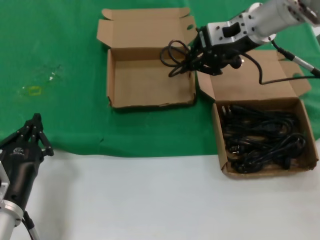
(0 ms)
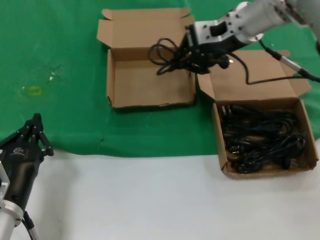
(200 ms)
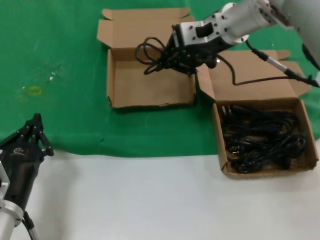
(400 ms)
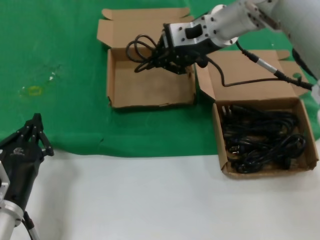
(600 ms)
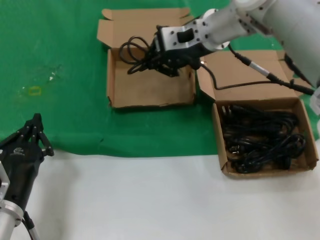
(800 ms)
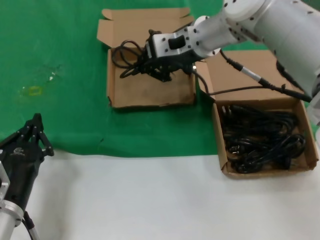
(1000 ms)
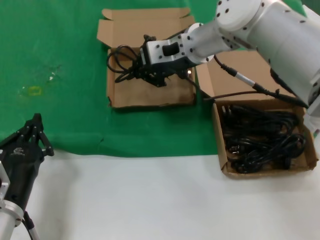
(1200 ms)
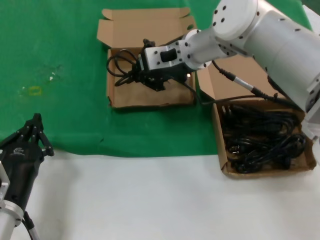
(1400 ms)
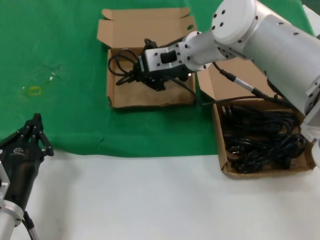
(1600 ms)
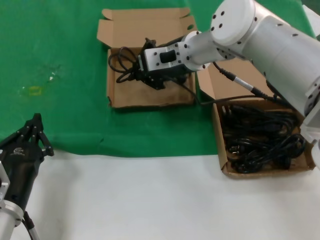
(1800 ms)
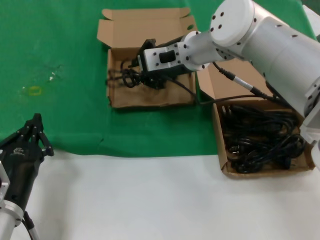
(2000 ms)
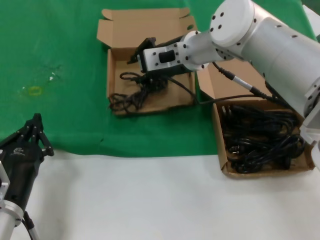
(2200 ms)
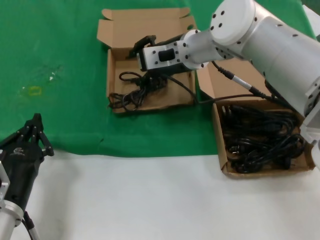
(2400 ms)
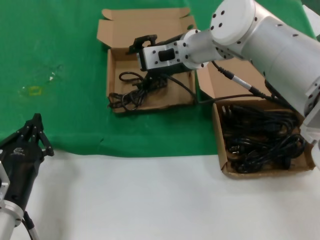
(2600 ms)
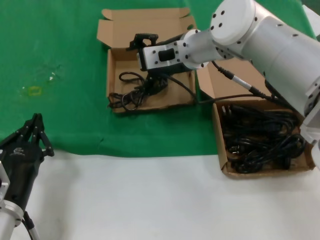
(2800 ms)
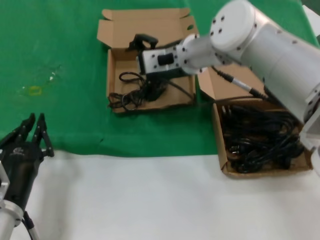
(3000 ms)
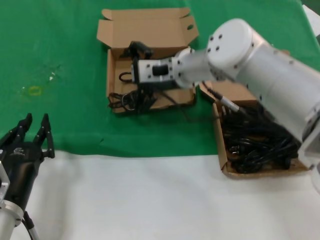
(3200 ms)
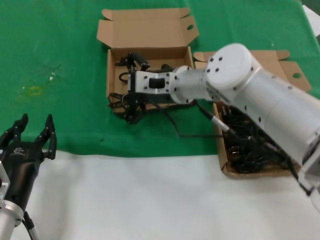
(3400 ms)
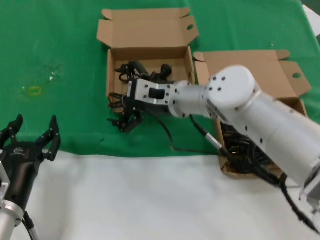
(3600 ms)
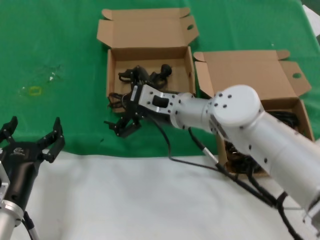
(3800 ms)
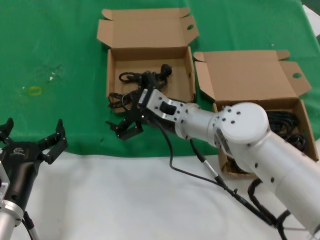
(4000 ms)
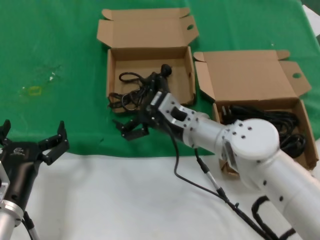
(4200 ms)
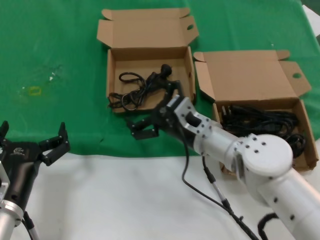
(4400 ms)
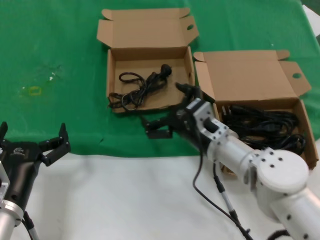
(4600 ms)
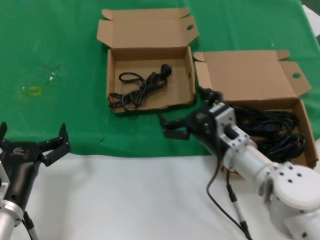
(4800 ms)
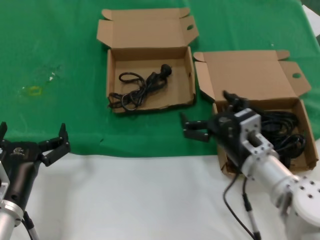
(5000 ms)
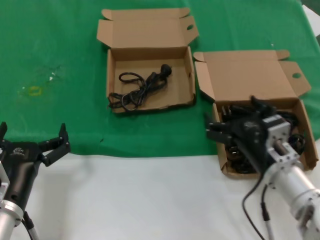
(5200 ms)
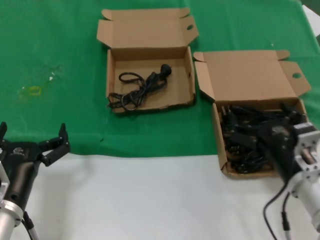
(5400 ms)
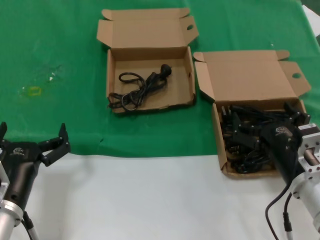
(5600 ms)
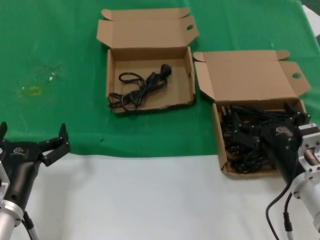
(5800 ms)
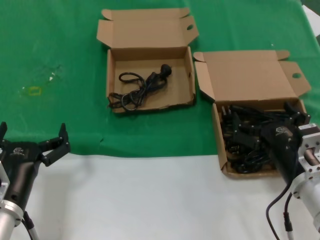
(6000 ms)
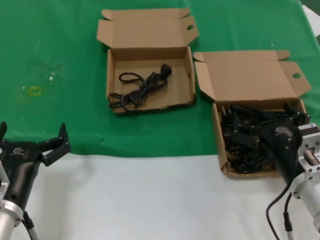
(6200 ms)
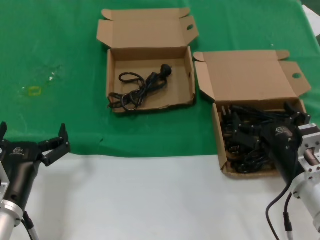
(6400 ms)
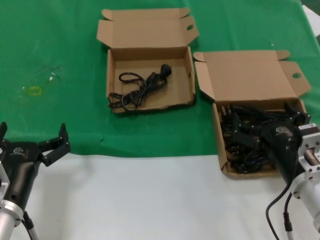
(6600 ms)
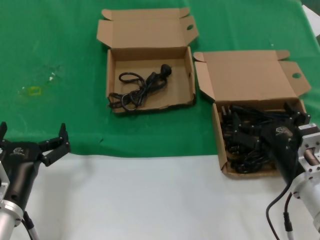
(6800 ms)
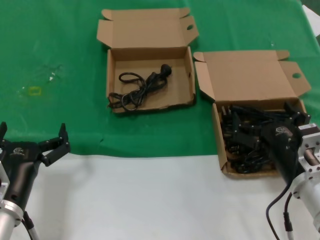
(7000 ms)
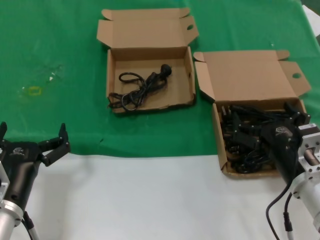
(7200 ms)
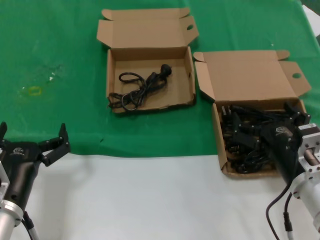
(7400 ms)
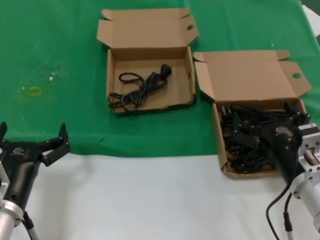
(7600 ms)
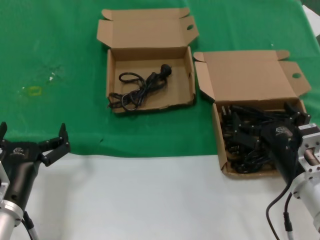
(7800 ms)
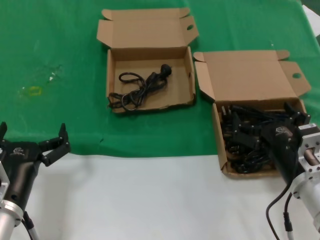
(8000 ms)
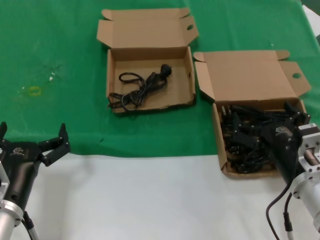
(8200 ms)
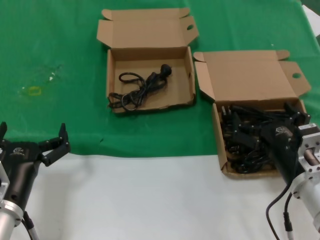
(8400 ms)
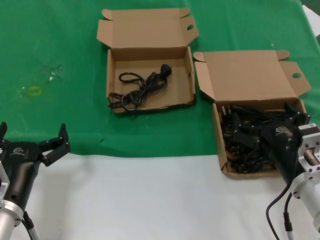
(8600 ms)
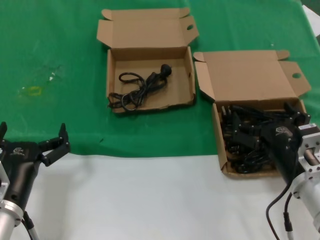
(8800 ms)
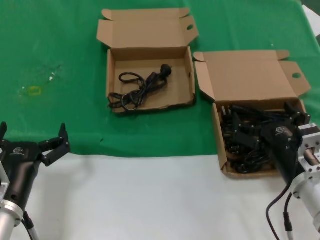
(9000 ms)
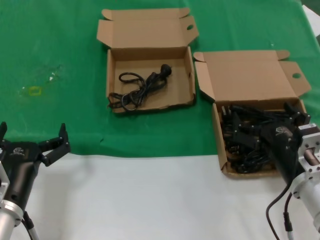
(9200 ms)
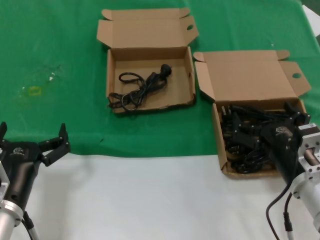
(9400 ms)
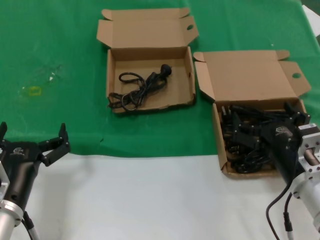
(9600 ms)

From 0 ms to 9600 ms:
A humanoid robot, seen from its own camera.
Task of the whole recording: take the parts from the box containing them and put them into an empty box.
Step, from 0 ms to 2400 ms: Place the data cable in the another box.
From 0 ms to 1600 ms: The right hand moves to the left and downward, some 15 cm.
From 3200 ms to 4800 ms: The right hand is displaced downward, backward and to the right by roughly 25 cm.
From 4800 ms to 6400 ms: The right hand is displaced to the right and backward by some 15 cm.
From 6400 ms to 9600 ms: The two hands keep their place.

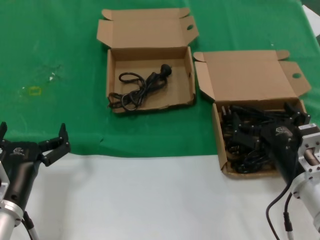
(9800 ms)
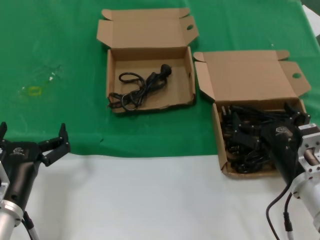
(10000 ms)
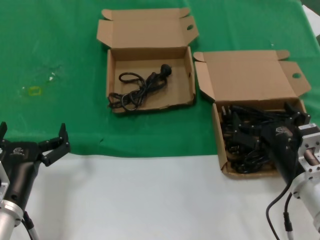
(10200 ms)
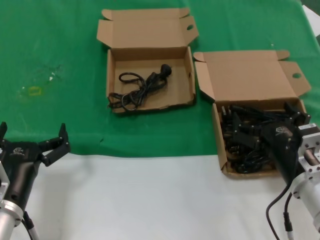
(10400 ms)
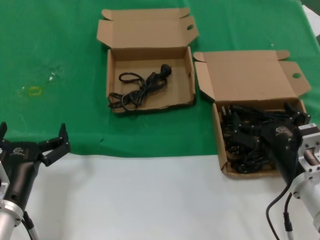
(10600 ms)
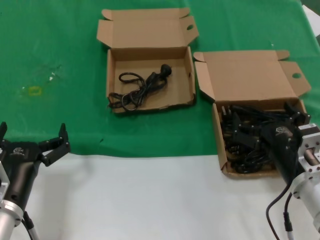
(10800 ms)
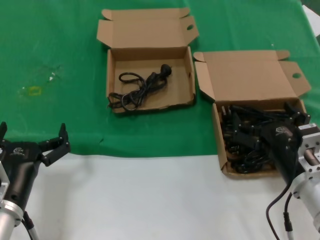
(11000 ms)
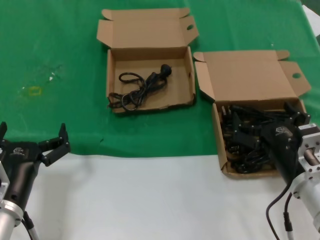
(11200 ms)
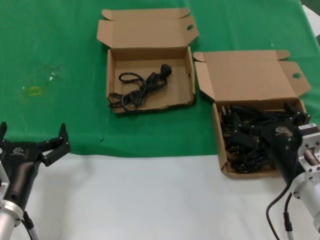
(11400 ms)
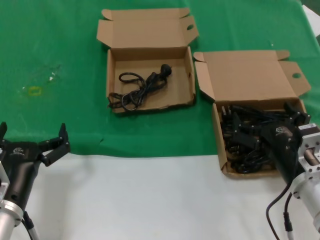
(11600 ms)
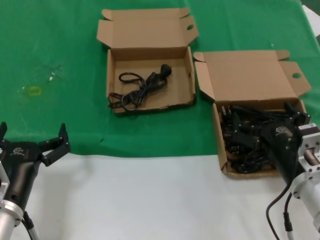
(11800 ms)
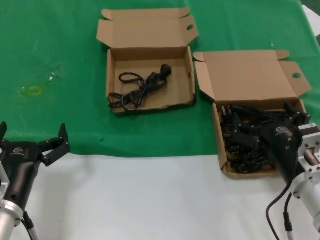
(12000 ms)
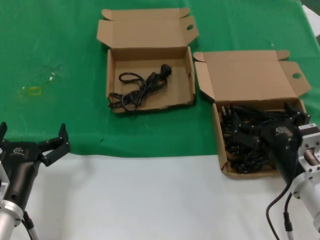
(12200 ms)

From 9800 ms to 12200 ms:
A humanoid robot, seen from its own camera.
Task of the whole recording: take the parts from the box containing them and put them into an empty box.
From 9800 ms to 12200 ms: Both hands stay put.
